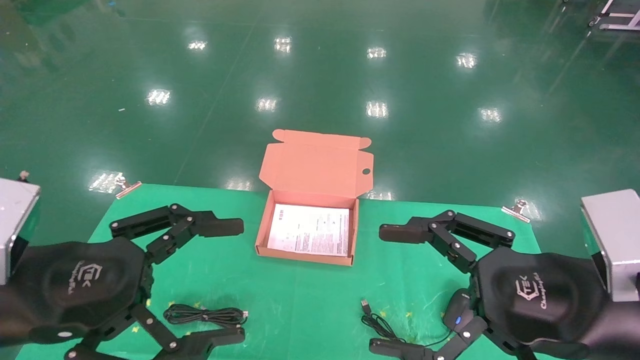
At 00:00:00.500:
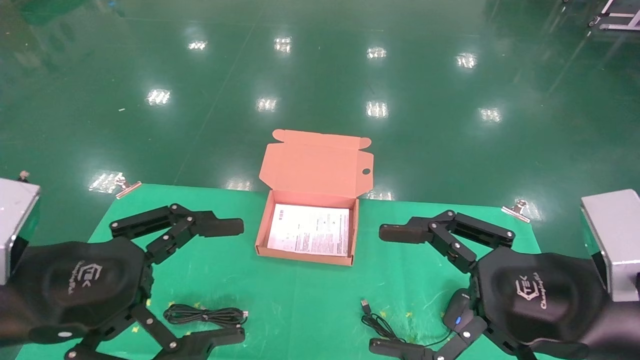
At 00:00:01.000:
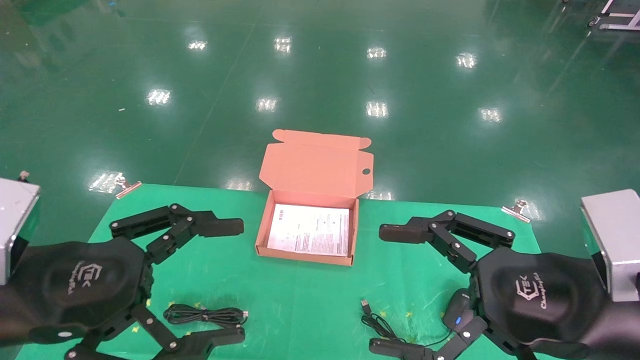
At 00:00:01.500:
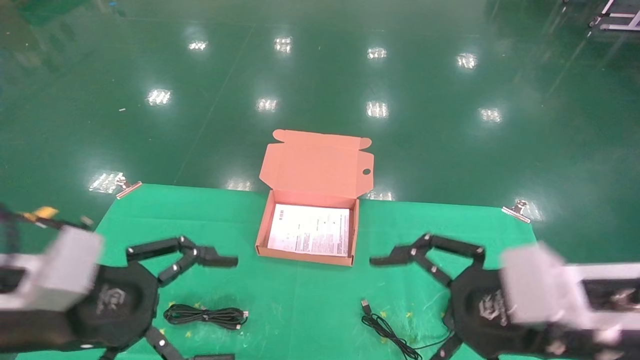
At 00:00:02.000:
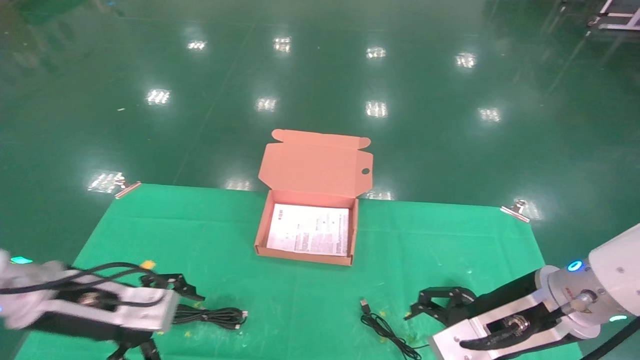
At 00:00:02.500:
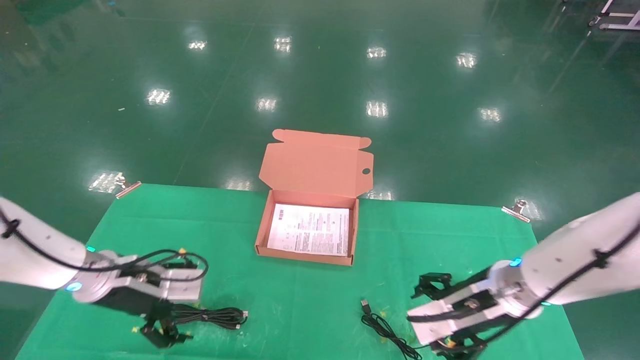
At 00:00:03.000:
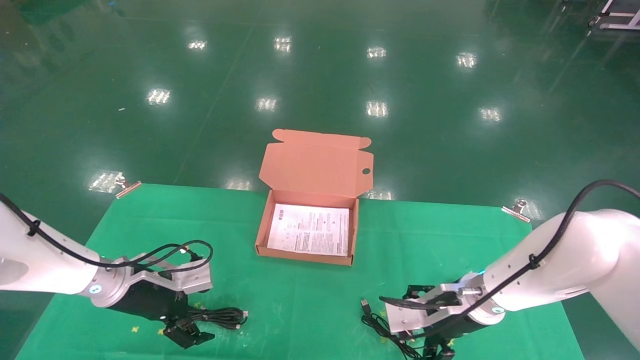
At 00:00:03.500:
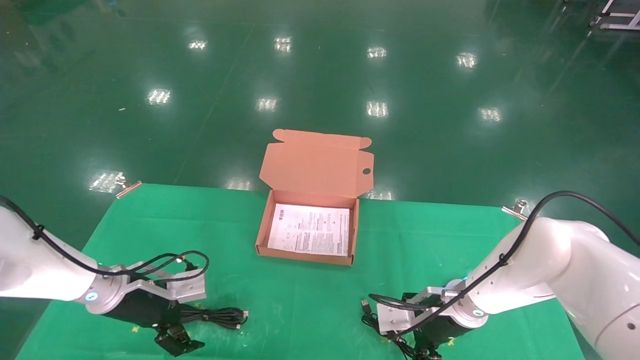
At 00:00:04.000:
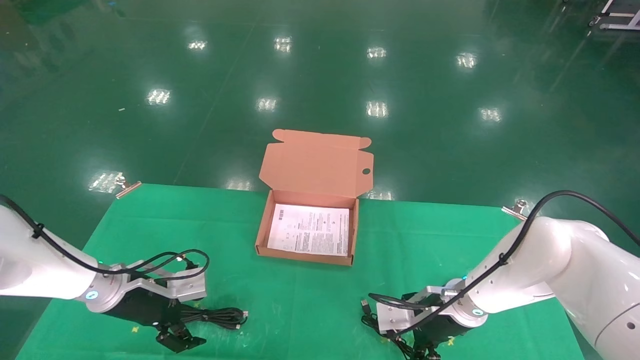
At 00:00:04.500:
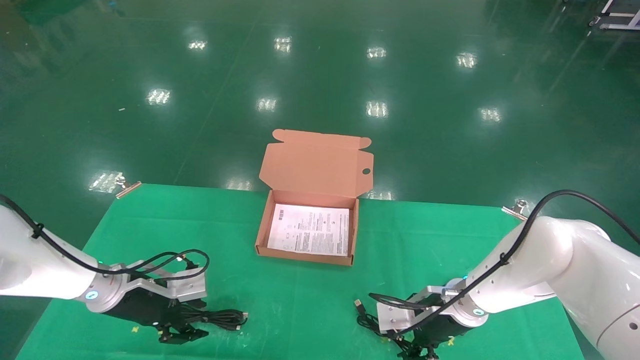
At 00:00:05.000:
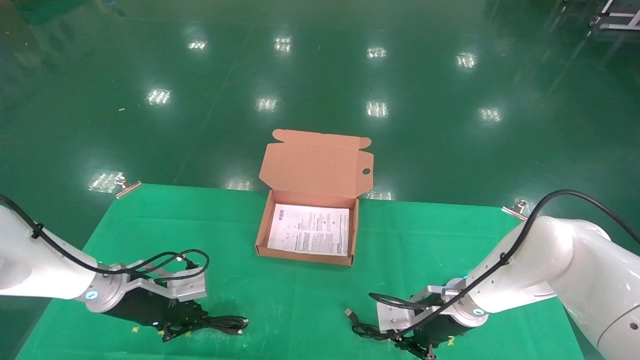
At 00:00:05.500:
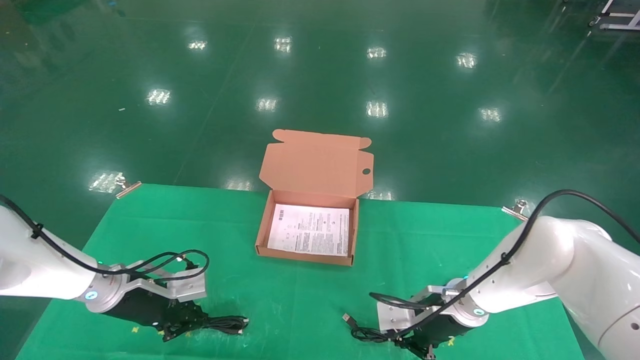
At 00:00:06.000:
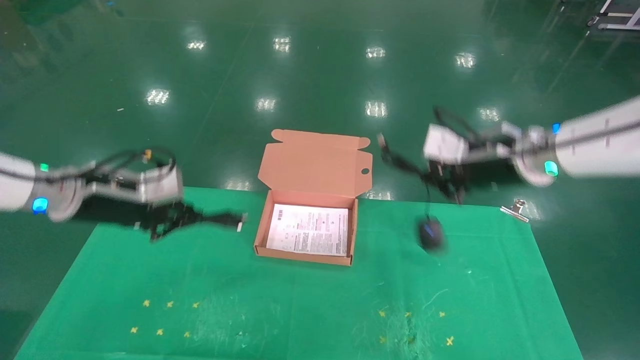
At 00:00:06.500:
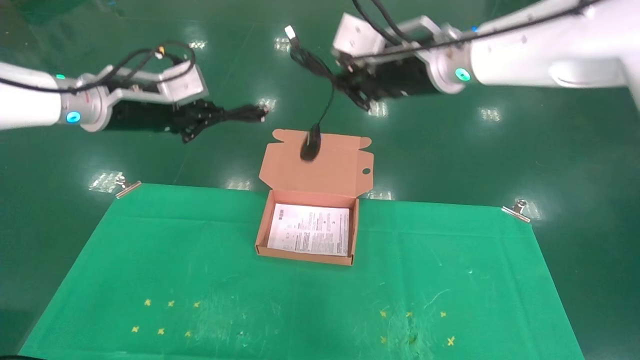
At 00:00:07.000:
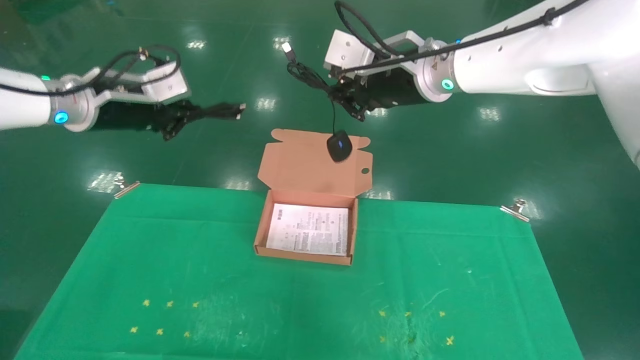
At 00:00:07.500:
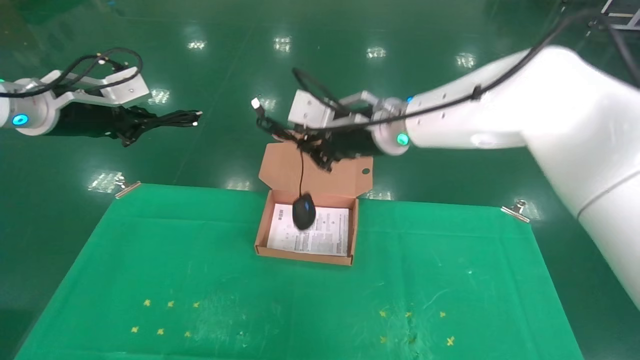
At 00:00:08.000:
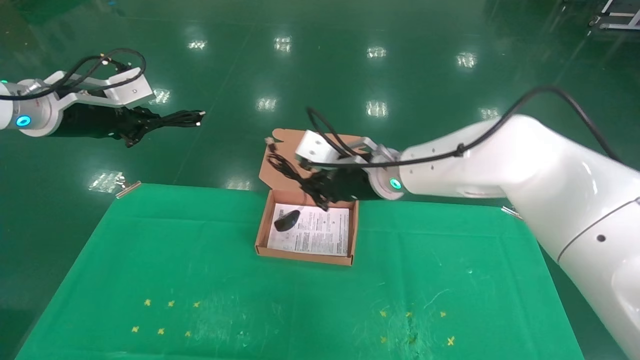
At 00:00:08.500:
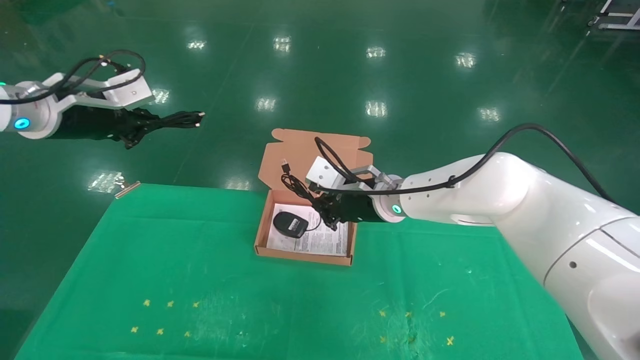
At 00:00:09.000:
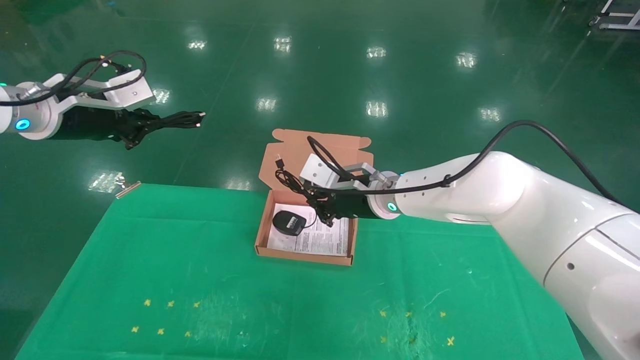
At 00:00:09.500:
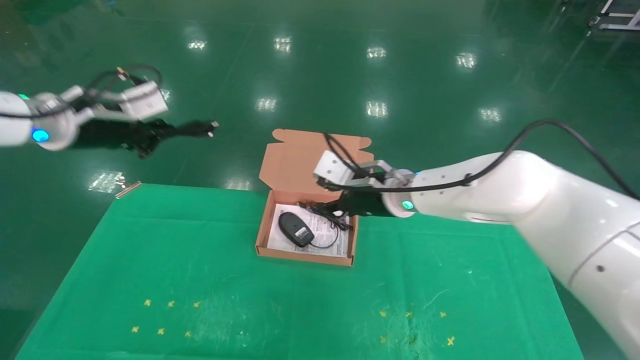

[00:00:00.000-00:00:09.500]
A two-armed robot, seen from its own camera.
Task of the whole recording: grasp data cable left put into box grasp mouse right put into box.
Step, 00:00:01.500 to 00:00:06.000: Grab and pick up both the mouse and power cord from the accessory packaging area at the same time.
00:00:00.000 to 00:00:02.000: The grippers both shift forward and downward by about 15 cm.
00:00:02.000 to 00:00:04.000: The two grippers go some 15 cm forward and downward.
00:00:04.000 to 00:00:05.500: The left gripper closes up. Meanwhile the right gripper closes its fingers.
00:00:05.500 to 00:00:07.500: The right gripper moves upward and to the left, approximately 25 cm; the left gripper heads upward, covering about 25 cm.
00:00:07.500 to 00:00:09.500: The right gripper is displaced downward and to the right by approximately 10 cm.

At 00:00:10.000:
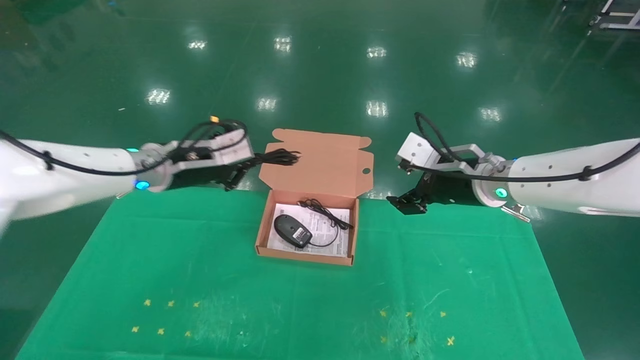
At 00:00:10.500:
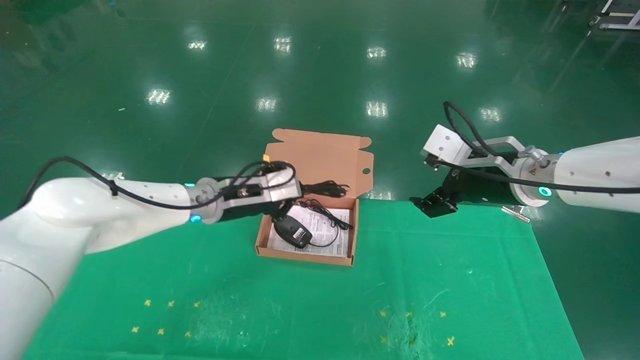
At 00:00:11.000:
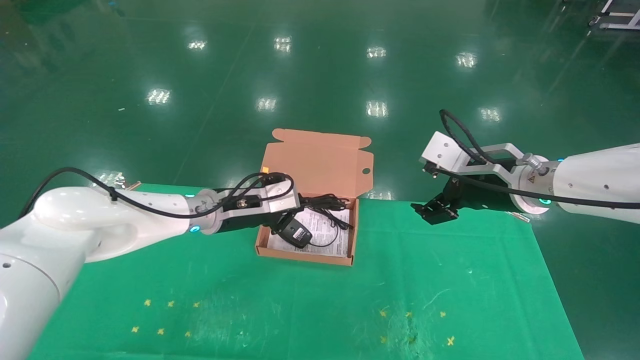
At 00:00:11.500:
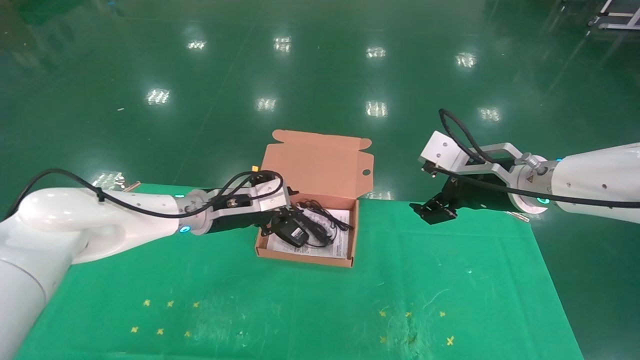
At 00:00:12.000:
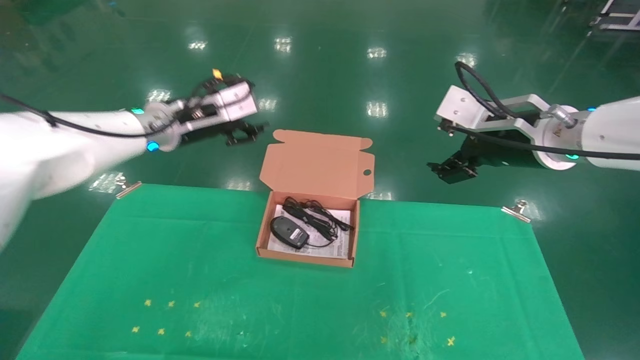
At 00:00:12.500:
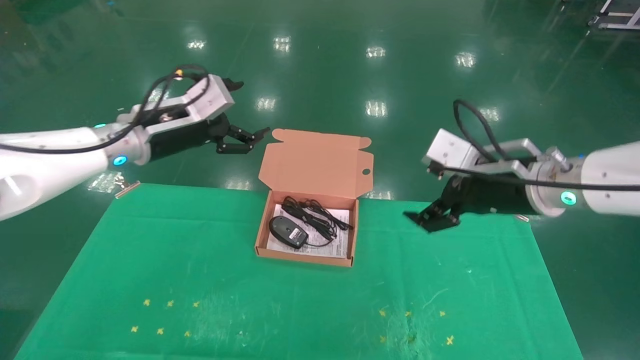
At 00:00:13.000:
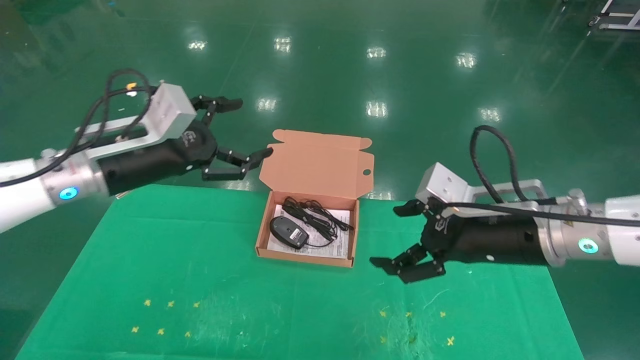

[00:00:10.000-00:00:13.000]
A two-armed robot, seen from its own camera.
Task of the whole recording: grasp data cable left put into box grasp mouse right put into box.
00:00:10.000 to 00:00:11.500: The left gripper is displaced downward by approximately 5 cm; the right gripper moves backward, about 5 cm, and opens.
00:00:11.500 to 00:00:13.000: The left gripper is displaced backward, to the left and upward by approximately 15 cm, and opens its fingers. Meanwhile the right gripper moves backward, some 5 cm.
